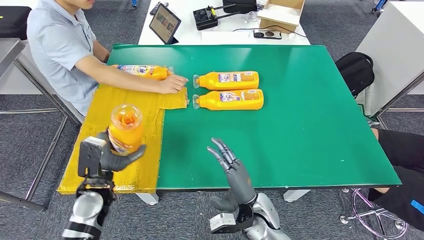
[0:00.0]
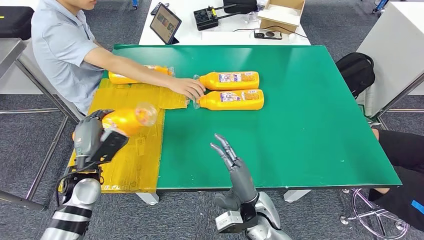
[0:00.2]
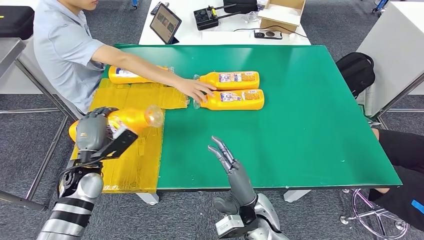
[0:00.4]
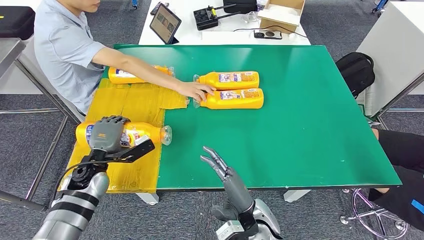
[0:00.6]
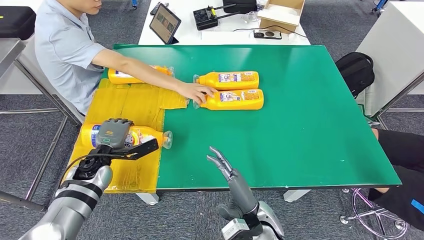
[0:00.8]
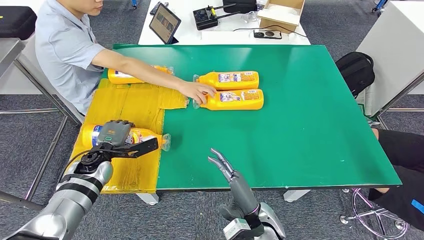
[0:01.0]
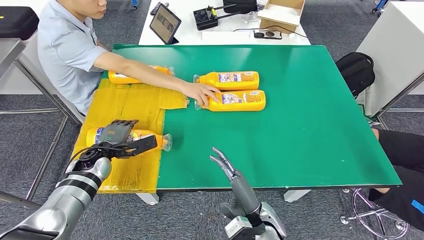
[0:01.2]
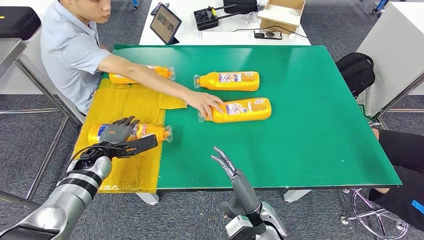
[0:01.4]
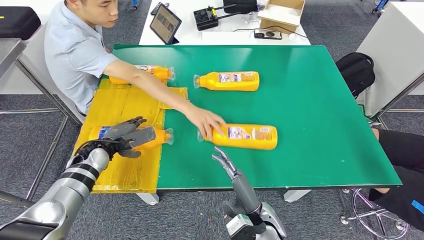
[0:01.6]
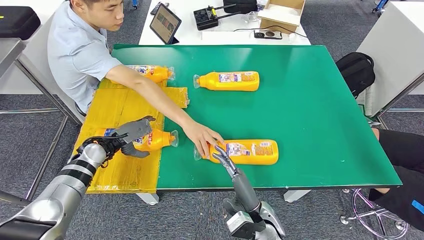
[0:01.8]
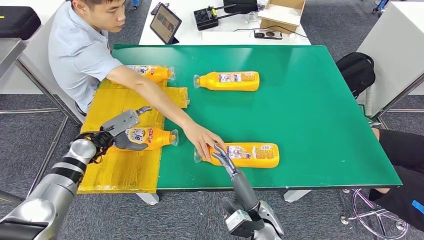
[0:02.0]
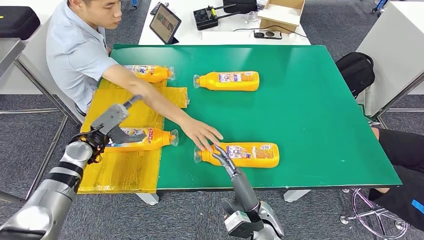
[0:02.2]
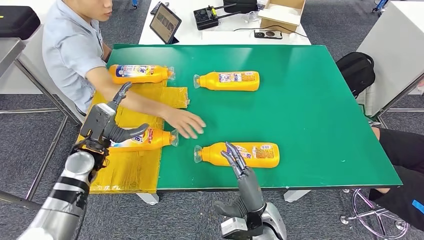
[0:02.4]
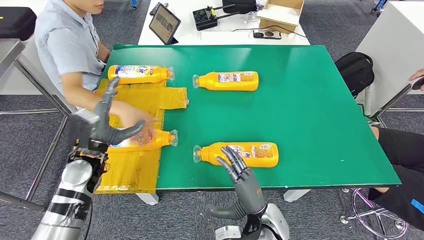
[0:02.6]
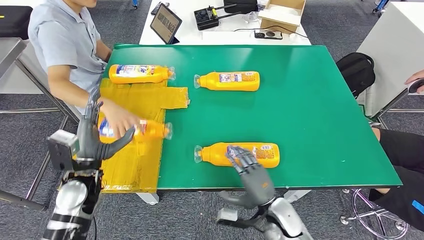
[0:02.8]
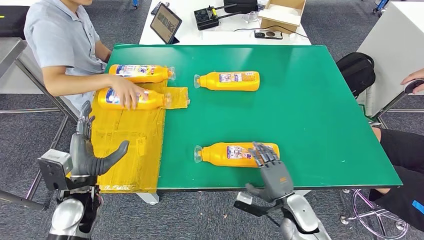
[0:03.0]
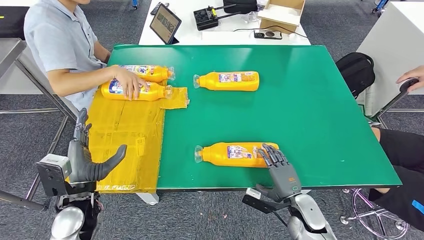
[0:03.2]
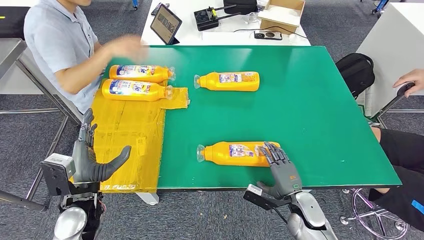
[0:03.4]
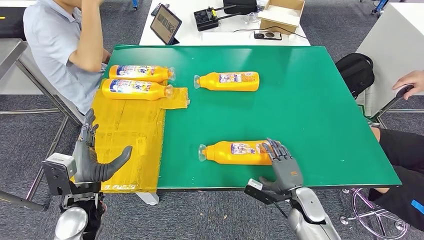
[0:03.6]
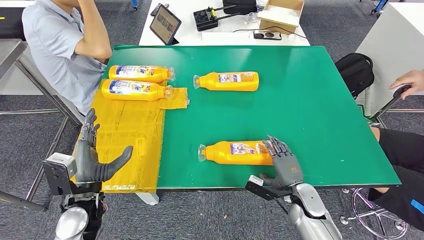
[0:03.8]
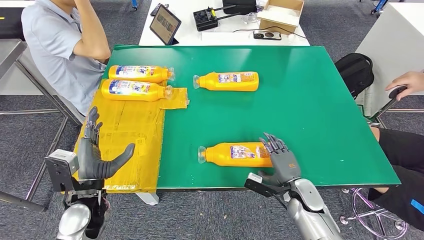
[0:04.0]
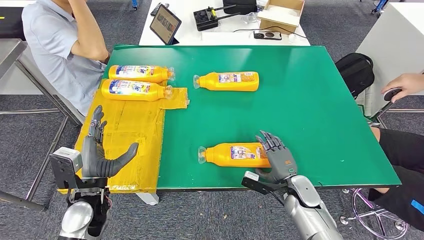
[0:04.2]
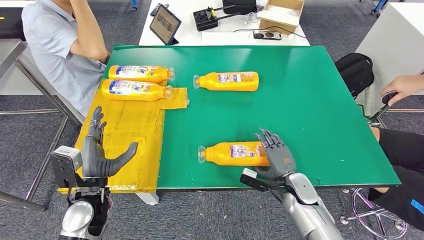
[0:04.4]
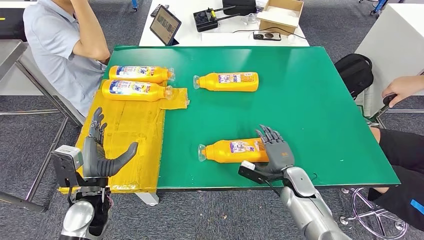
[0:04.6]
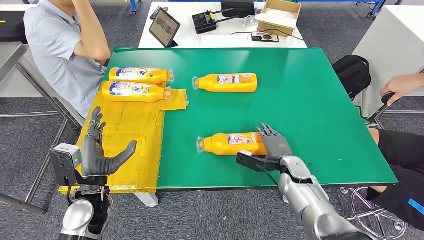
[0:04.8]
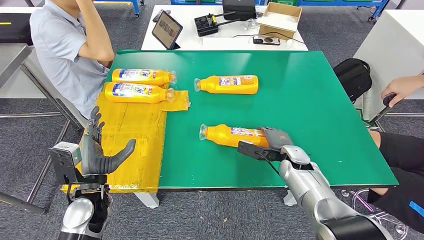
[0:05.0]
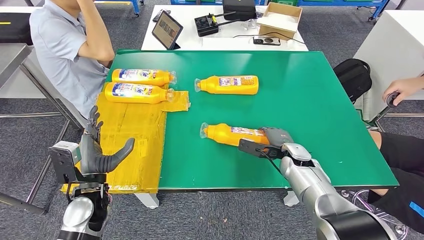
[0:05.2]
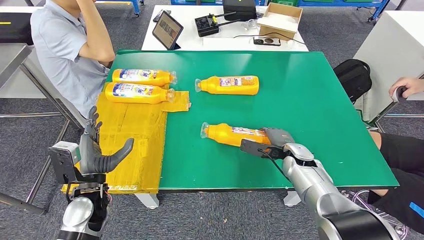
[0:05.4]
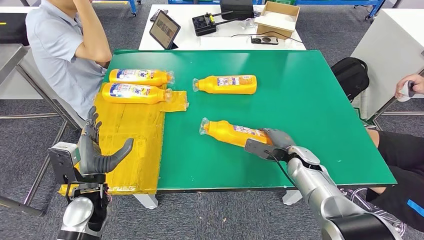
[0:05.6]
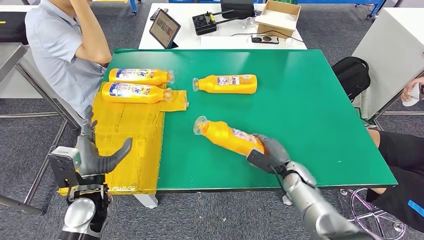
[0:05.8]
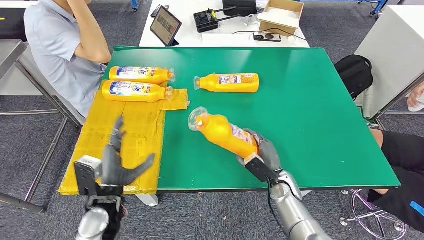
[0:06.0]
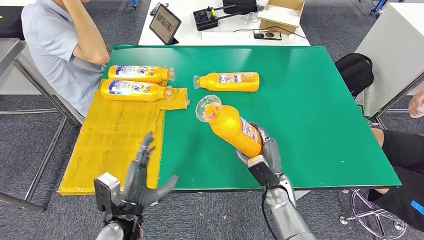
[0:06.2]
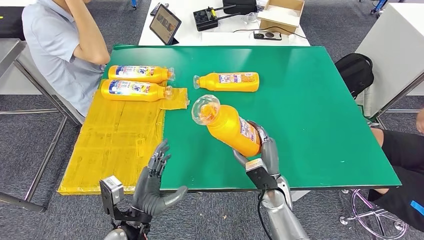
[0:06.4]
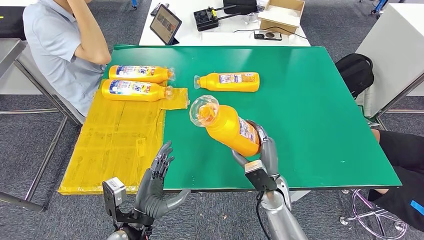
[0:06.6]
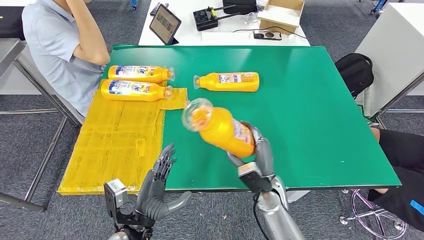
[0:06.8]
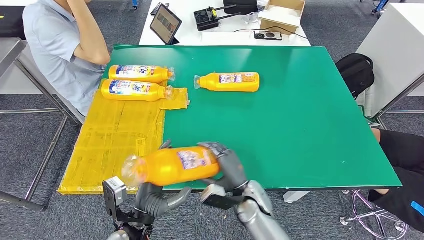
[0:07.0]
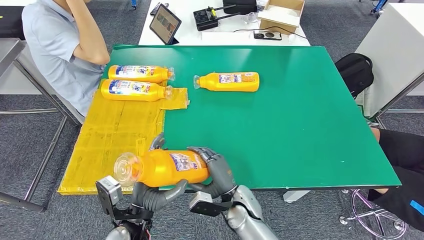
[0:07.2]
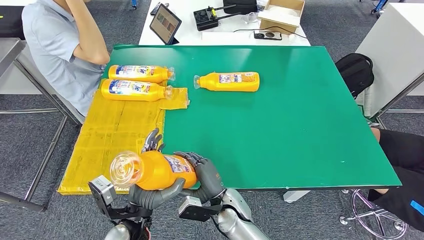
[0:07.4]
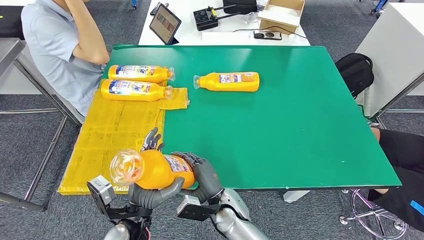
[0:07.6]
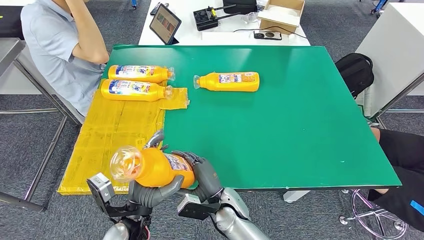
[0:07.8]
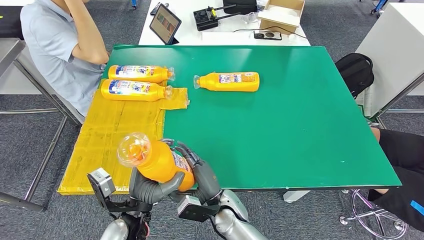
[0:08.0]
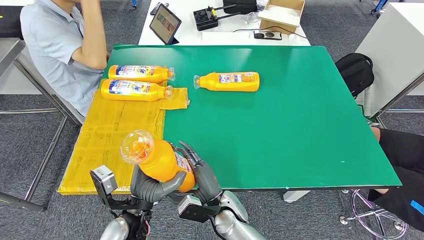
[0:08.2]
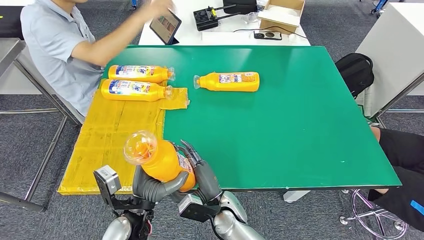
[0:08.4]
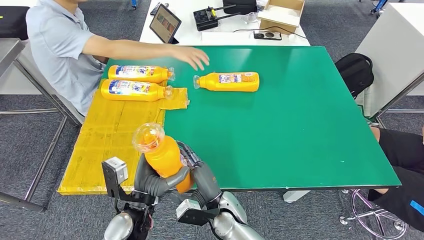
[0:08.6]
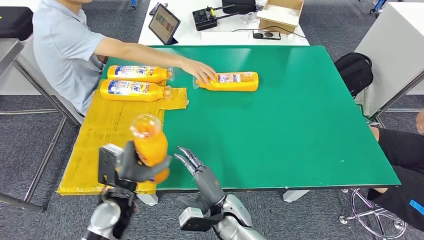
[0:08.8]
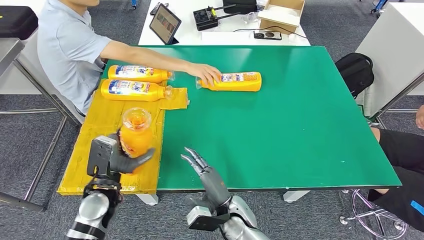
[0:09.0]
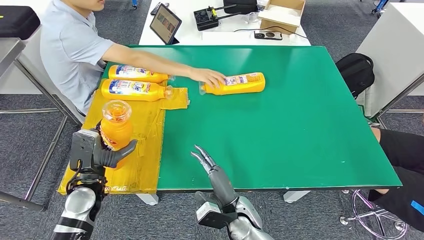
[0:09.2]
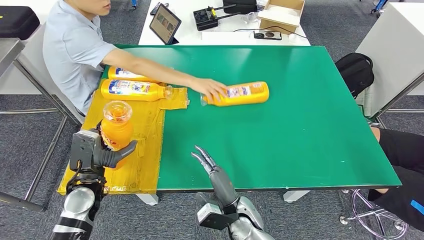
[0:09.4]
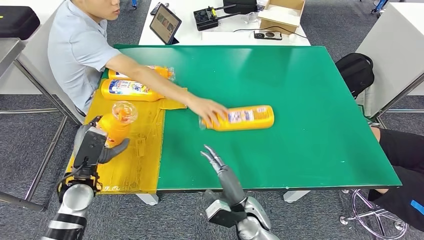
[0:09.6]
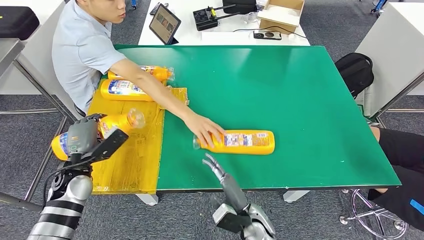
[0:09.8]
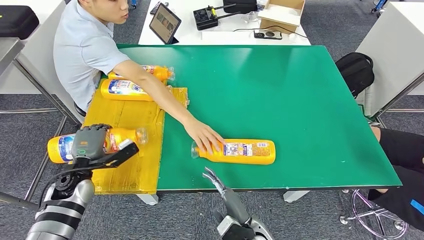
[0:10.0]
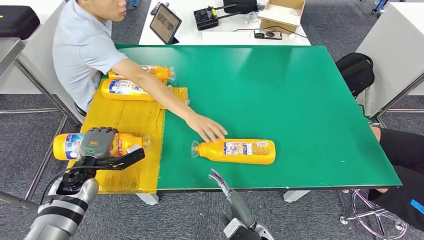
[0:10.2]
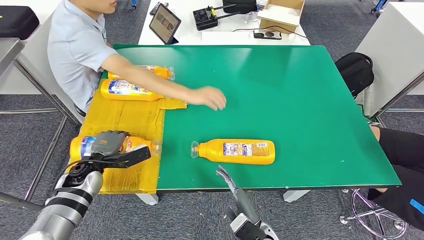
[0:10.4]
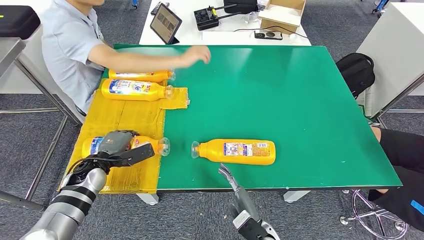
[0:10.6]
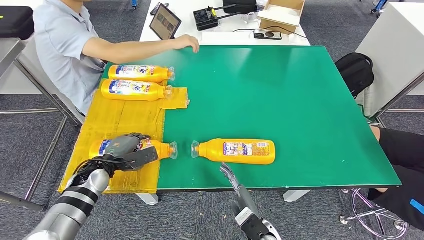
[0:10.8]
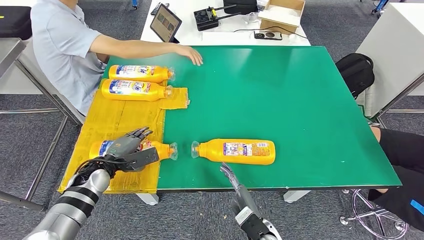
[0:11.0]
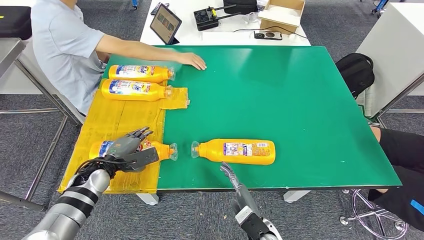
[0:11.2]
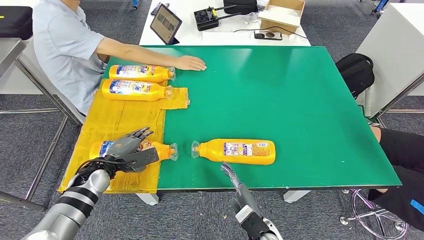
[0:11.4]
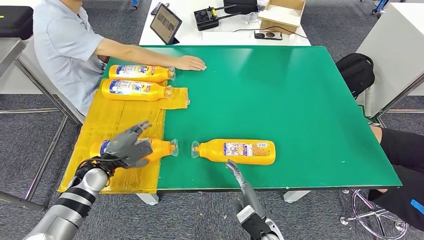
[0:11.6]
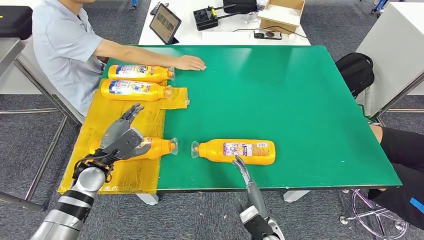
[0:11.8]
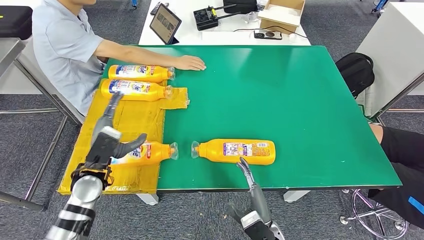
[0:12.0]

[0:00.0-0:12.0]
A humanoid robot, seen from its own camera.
Step, 0:00.0 to 0:01.8: Flip the fast-moving consumer goods bottle to the front side.
Step, 0:02.2 to 0:07.4: Pick up the fast-moving consumer goods bottle from the table.
Step, 0:07.6 to 0:11.6: Flip the fast-moving consumer goods bottle to the front side.
0:03.0 to 0:04.4: The right hand is displaced forward by about 5 cm.
0:07.6 to 0:09.0: The left hand goes some 10 cm to the left and forward.
0:10.4 to 0:12.0: The left hand moves upward and to the right, approximately 5 cm.

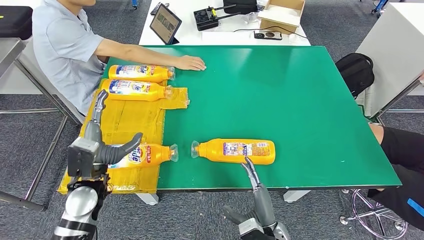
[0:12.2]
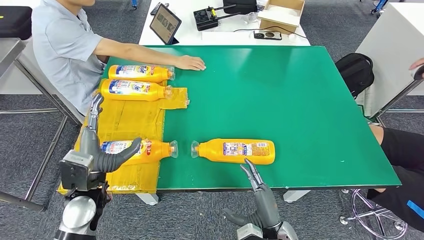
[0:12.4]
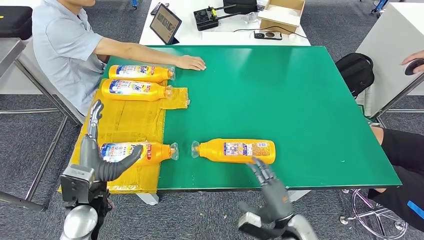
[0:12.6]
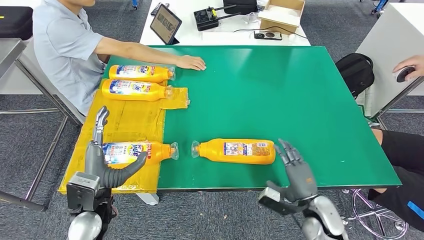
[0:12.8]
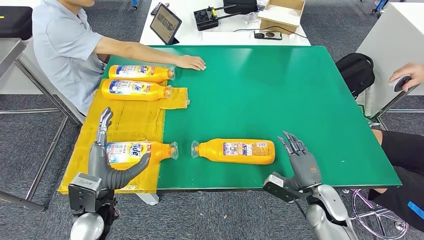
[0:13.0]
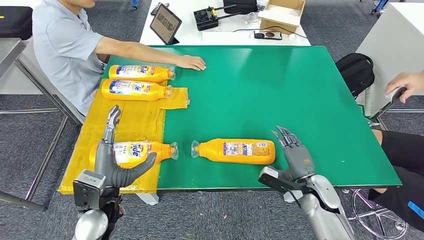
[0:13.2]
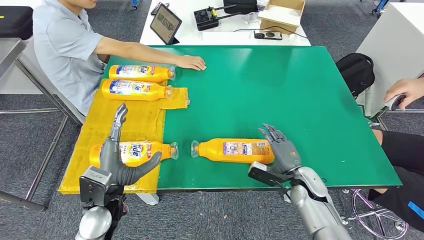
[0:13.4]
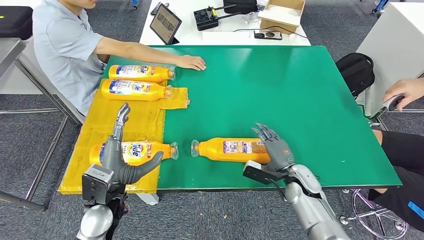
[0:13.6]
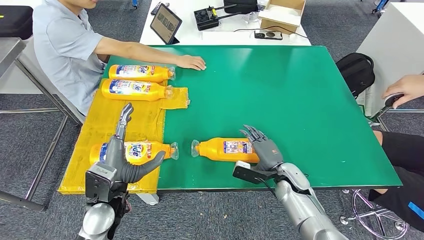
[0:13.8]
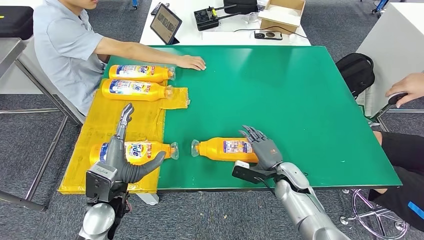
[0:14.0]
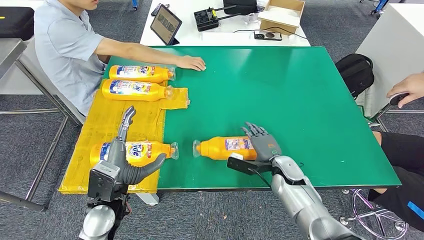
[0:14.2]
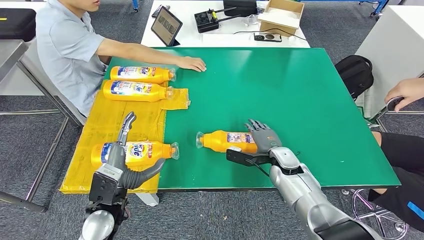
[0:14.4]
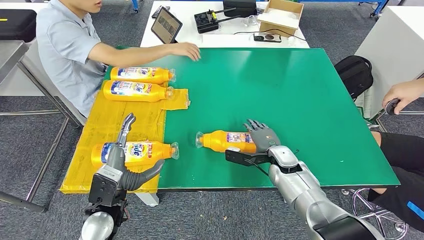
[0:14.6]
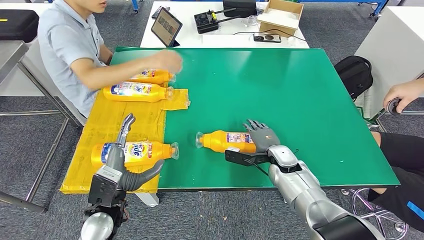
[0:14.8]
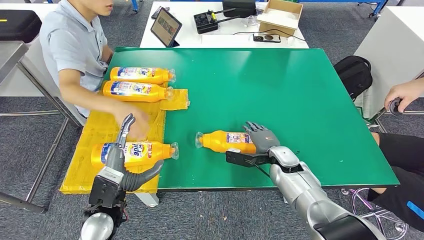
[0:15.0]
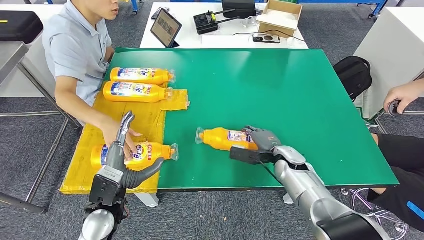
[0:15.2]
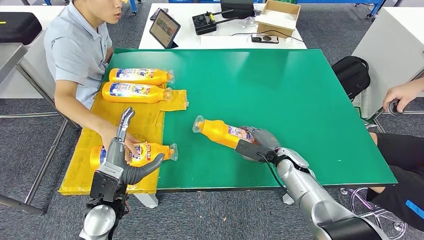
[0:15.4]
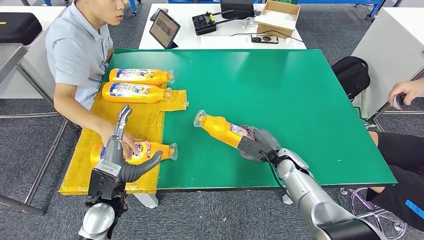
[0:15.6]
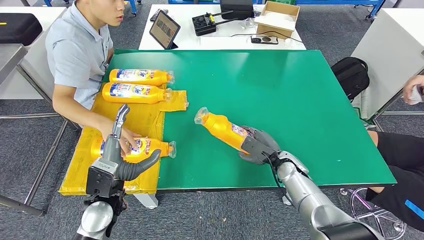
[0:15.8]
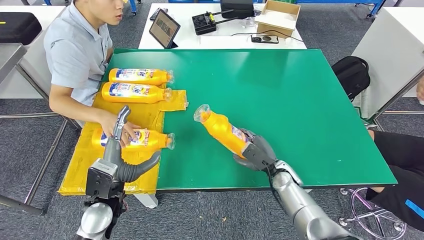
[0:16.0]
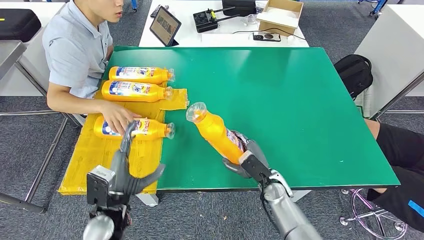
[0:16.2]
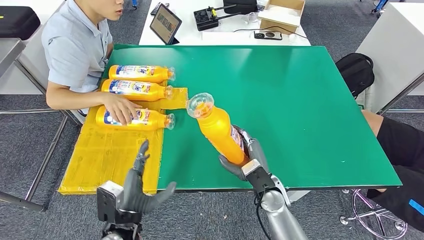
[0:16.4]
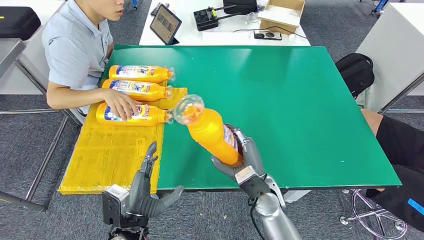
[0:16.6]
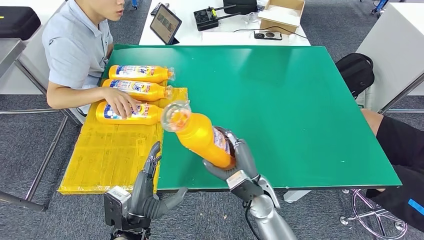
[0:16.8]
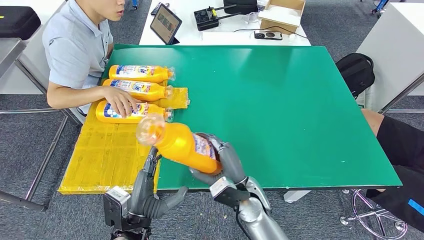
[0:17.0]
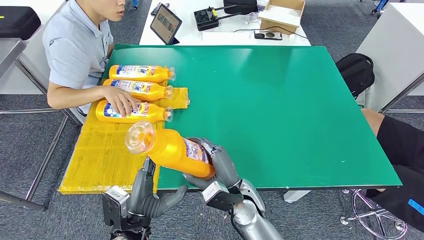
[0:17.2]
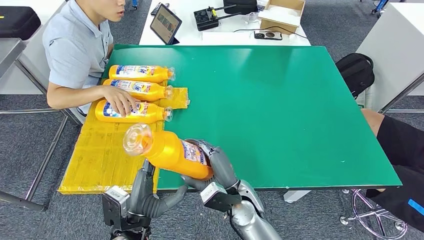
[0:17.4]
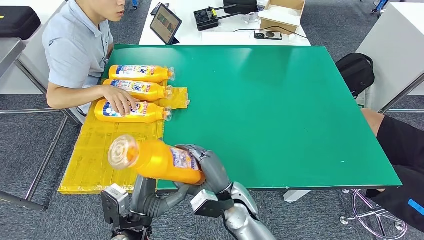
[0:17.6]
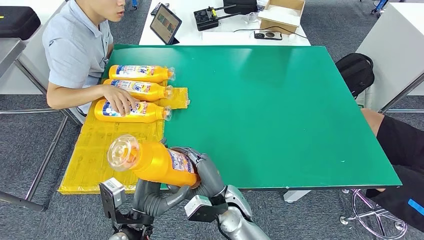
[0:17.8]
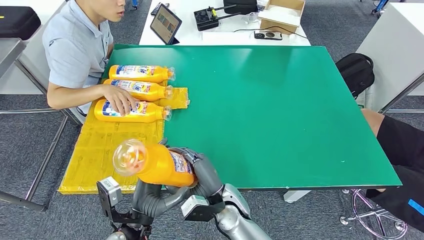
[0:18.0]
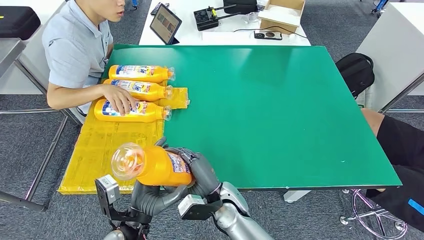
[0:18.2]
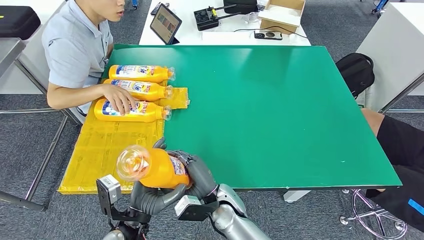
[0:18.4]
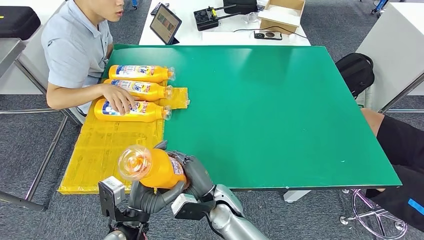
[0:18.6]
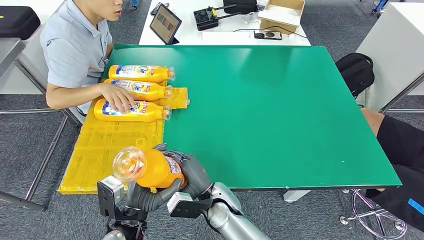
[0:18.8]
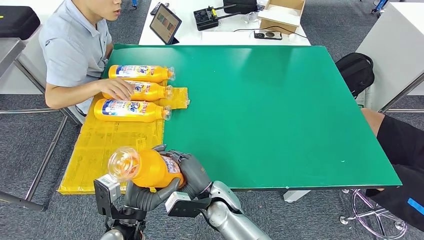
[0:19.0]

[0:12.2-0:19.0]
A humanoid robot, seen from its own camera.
Step, 0:12.2 to 0:17.2: Pick up the fast-moving consumer goods bottle from the table.
0:12.2 to 0:13.6: The right hand moves forward and to the right, about 20 cm, while the left hand ends up about 5 cm from where it was.
0:17.6 to 0:19.0: The hands move only a little.
